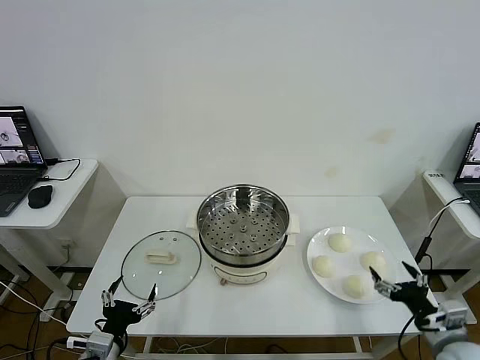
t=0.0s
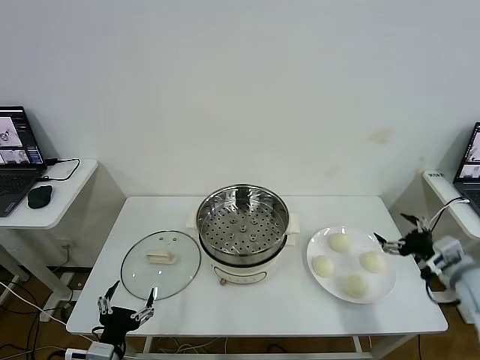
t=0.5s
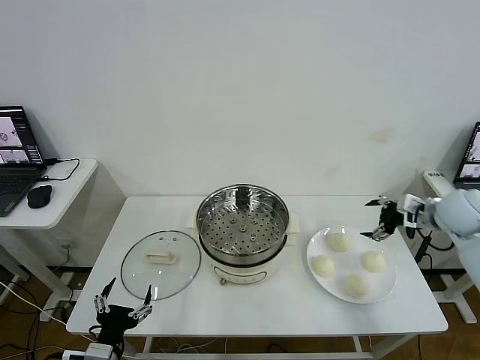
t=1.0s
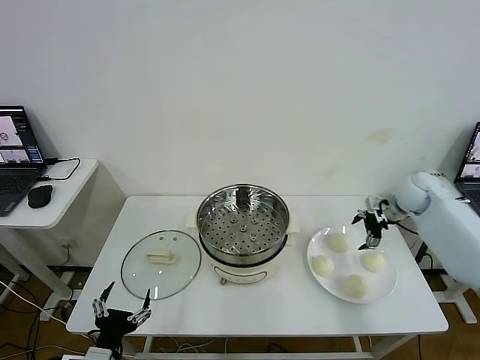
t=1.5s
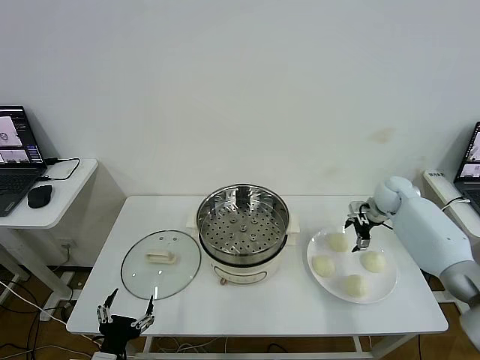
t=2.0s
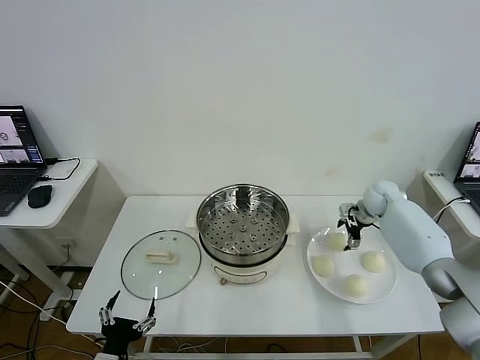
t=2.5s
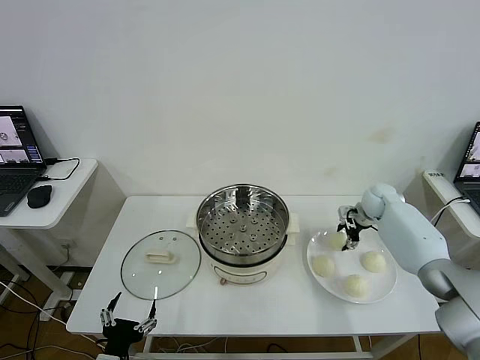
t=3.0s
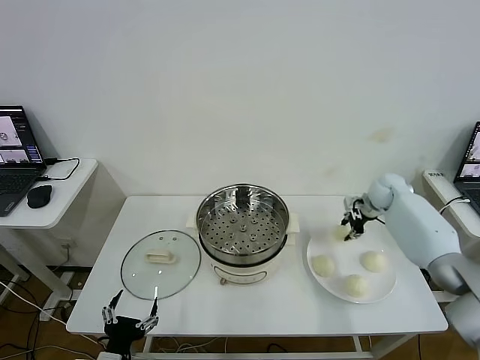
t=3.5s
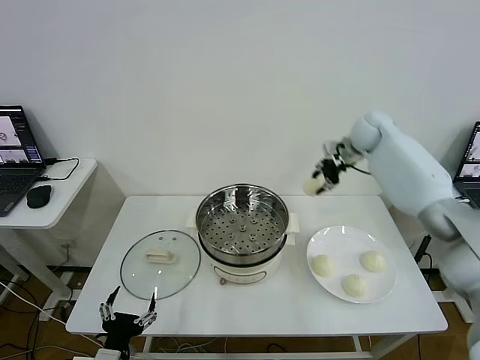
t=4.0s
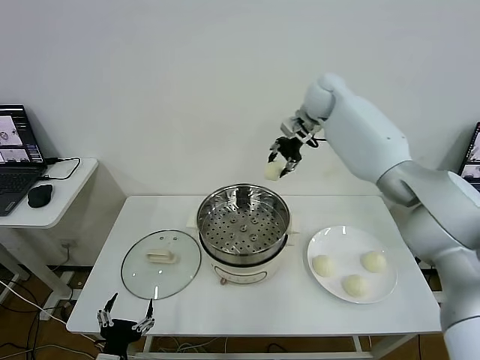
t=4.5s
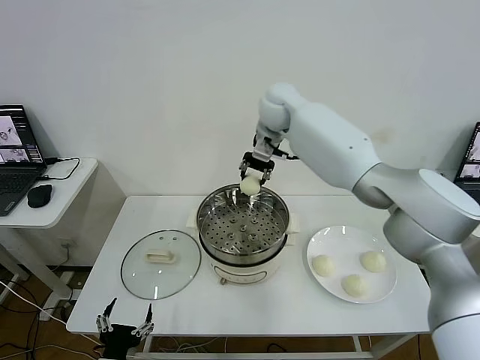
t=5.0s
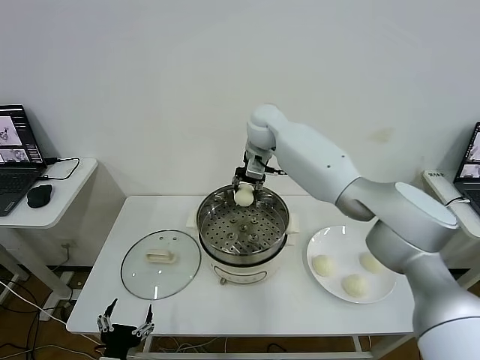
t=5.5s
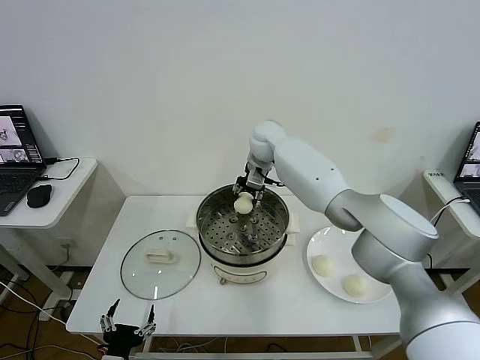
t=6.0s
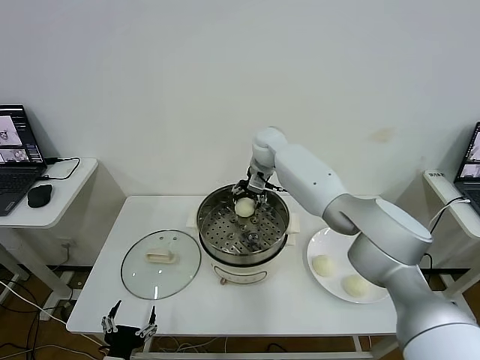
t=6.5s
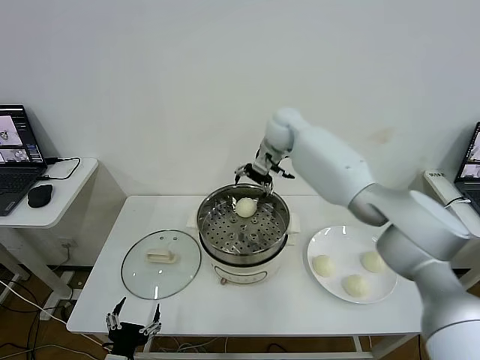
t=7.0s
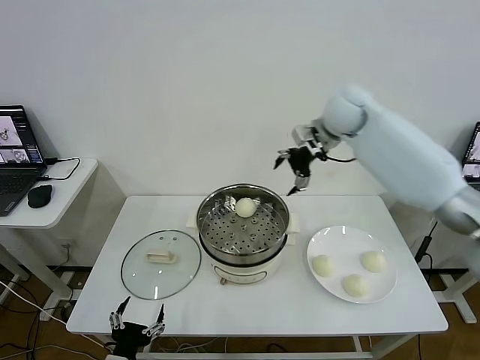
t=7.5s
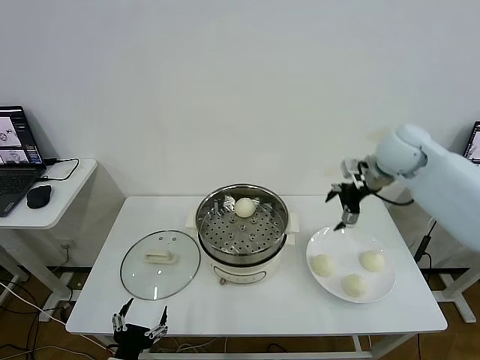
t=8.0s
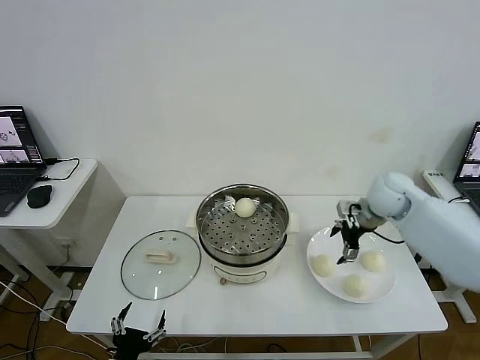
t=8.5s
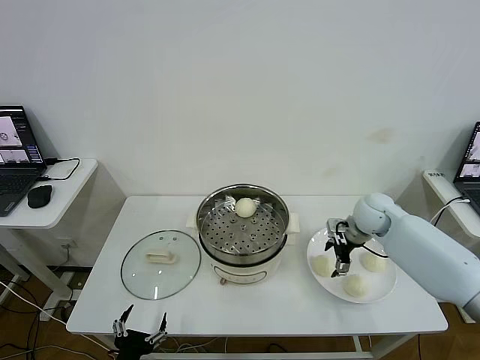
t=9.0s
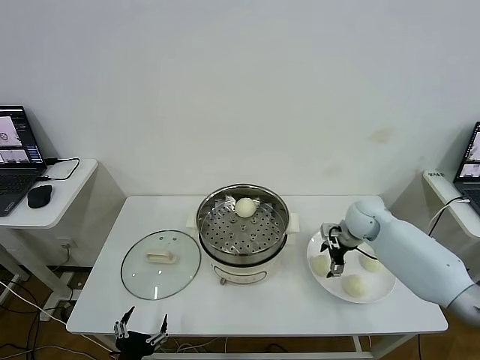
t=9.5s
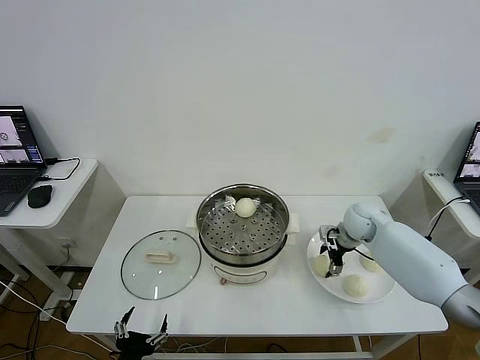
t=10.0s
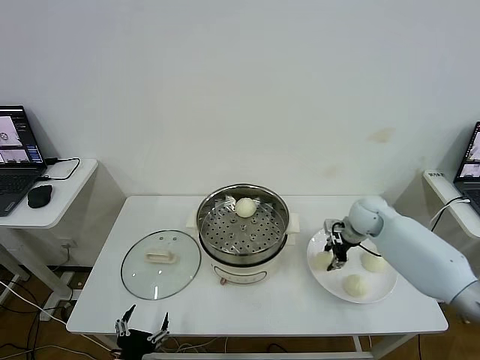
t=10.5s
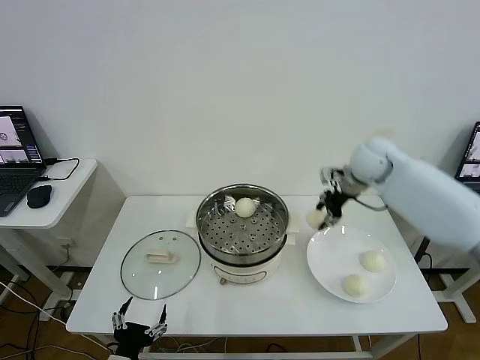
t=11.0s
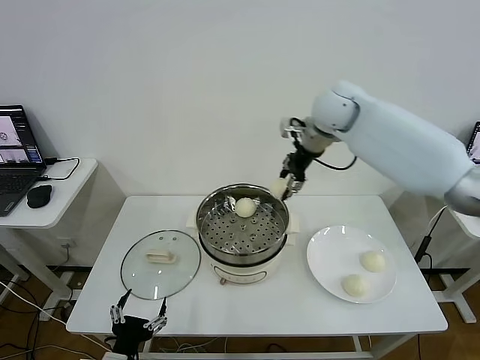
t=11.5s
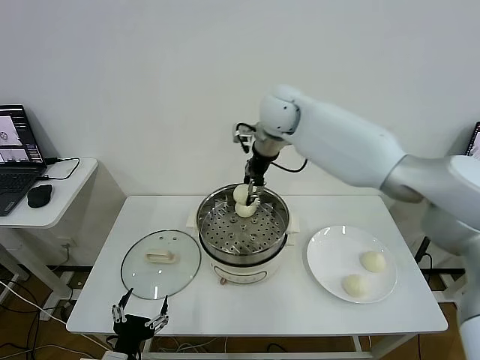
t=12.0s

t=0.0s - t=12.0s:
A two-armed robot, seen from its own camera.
Step, t=0.0s - t=3.0s: Grasp the baozi in the plate with right gripper.
Step, t=3.5s - t=6.5s: Place the baozi on the steamer with right gripper.
Step, t=7.0s - t=10.0s: Grasp the baozi in the plate with right gripper.
t=2.0s - t=4.0s: The right gripper goes some 25 cm upward and to the left, and closes.
t=4.0s - t=6.0s: The right gripper moves to the left, roughly 20 cm.
t=6.0s - t=8.0s: The right gripper travels to the right and backward by about 30 cm, and opens.
t=8.0s - t=10.0s: The right gripper goes some 20 cm downward, and closes.
t=10.0s - t=12.0s: The right gripper heads upward and to the left, covering approximately 35 cm, and closes.

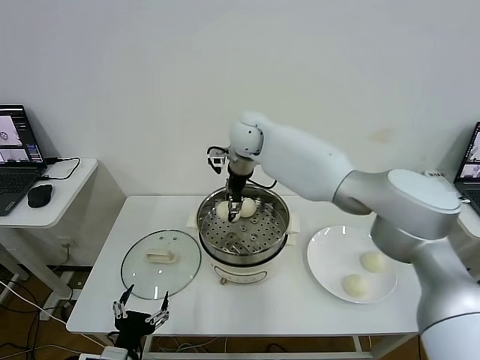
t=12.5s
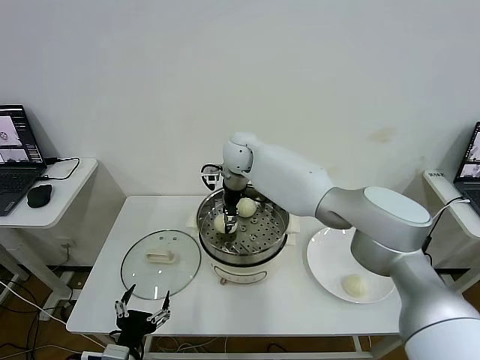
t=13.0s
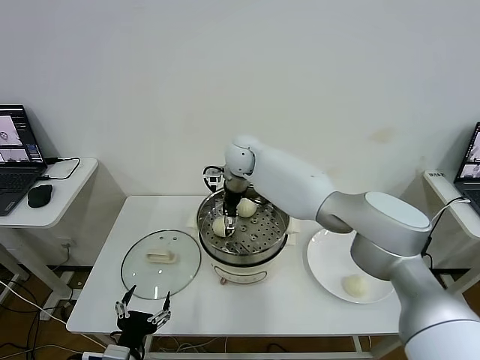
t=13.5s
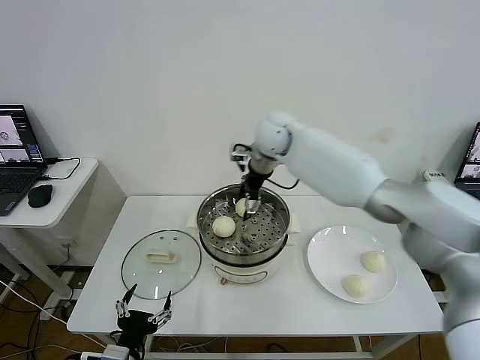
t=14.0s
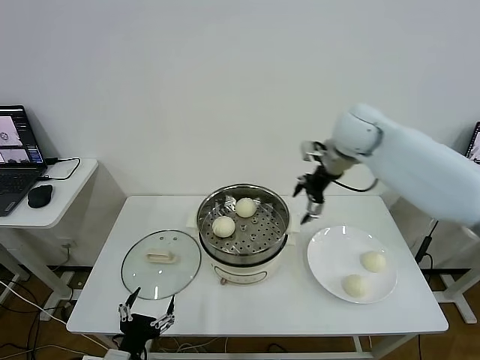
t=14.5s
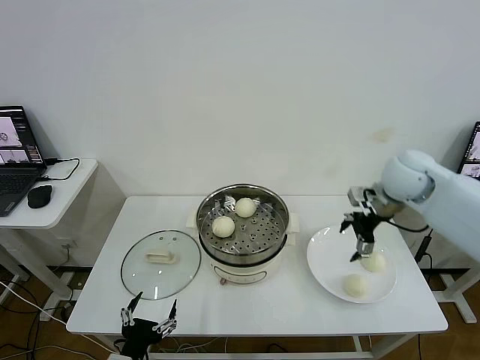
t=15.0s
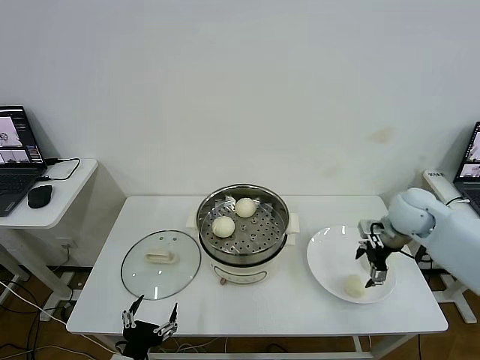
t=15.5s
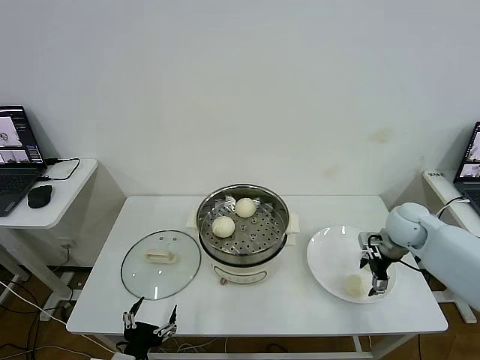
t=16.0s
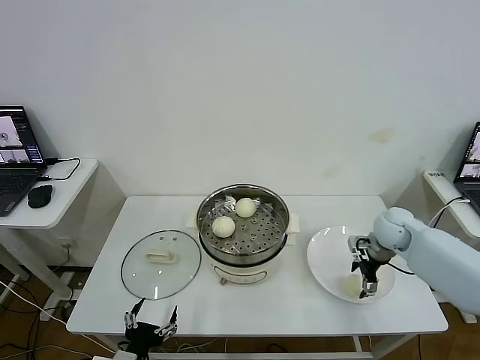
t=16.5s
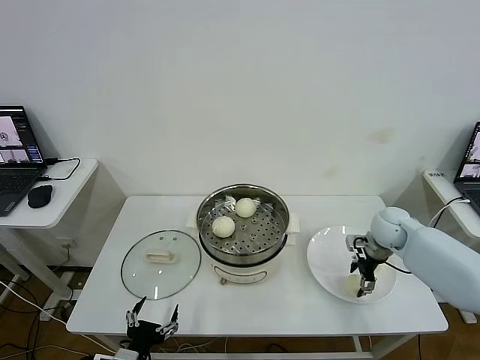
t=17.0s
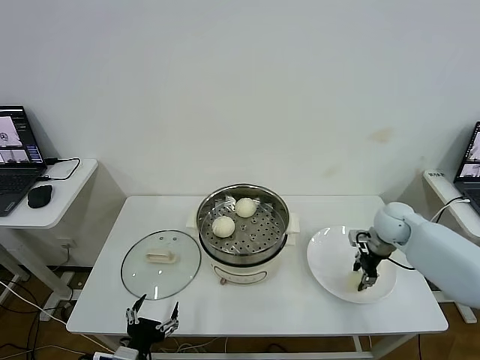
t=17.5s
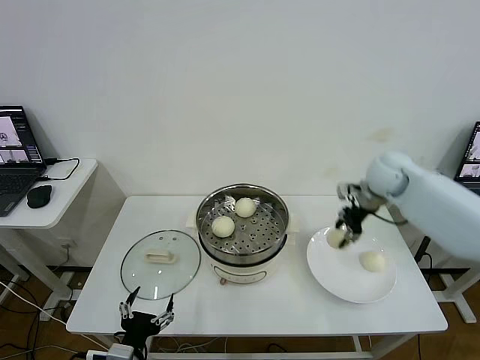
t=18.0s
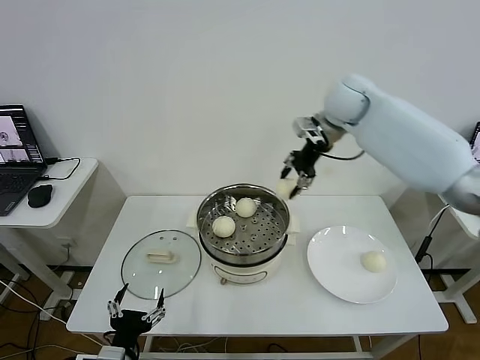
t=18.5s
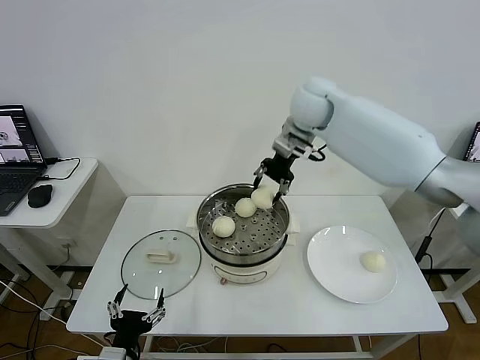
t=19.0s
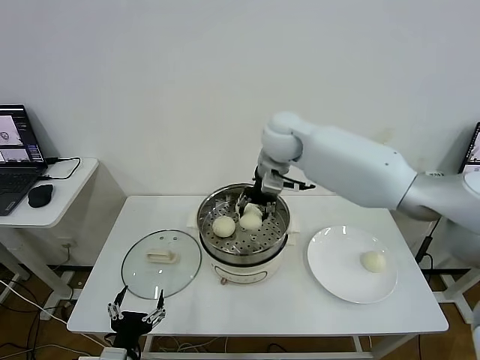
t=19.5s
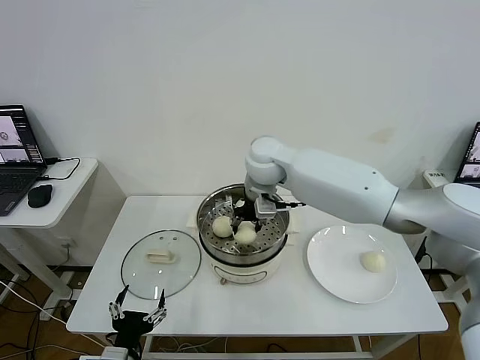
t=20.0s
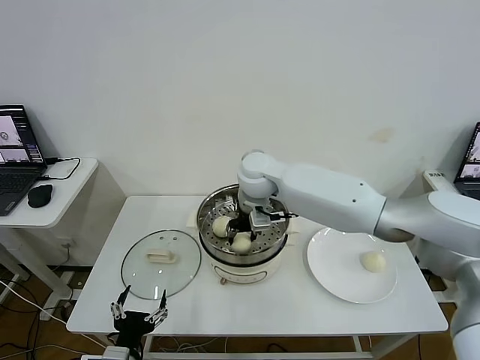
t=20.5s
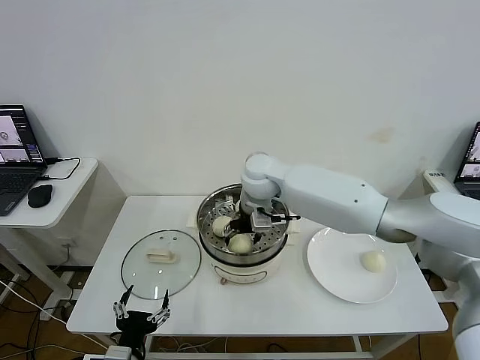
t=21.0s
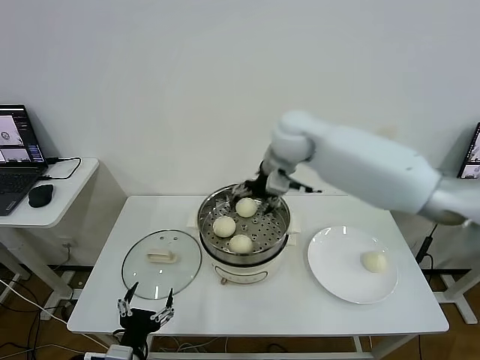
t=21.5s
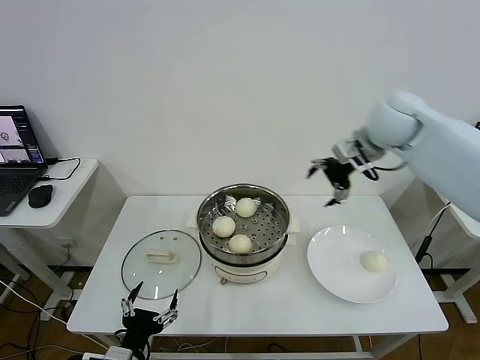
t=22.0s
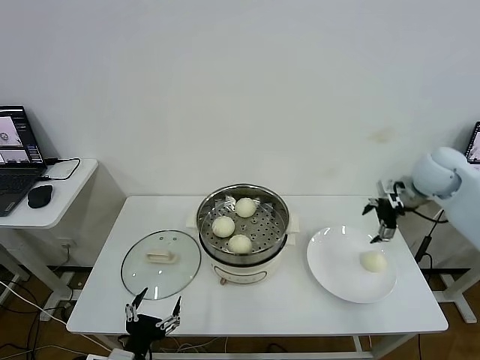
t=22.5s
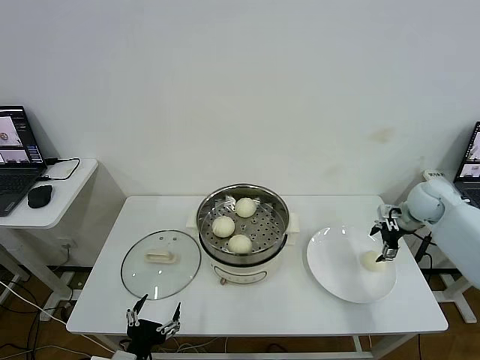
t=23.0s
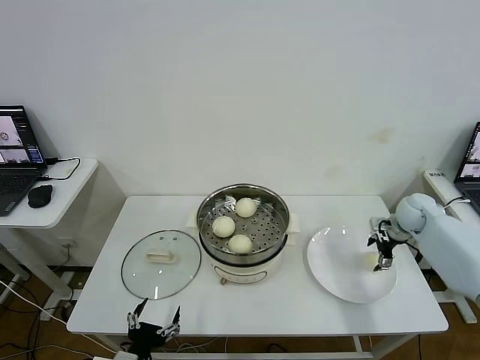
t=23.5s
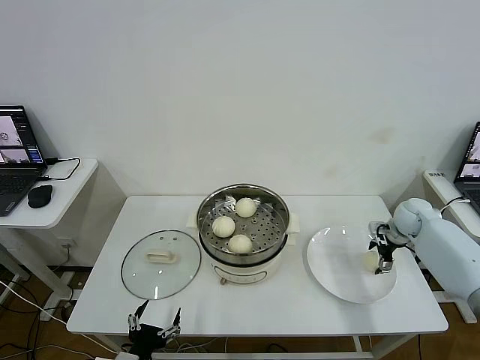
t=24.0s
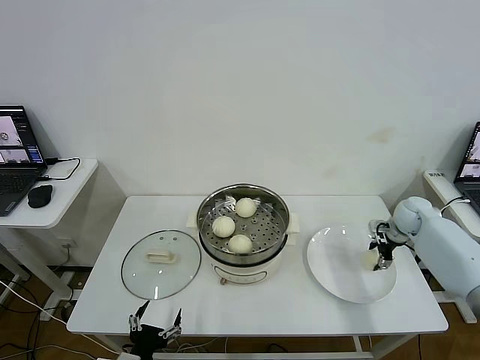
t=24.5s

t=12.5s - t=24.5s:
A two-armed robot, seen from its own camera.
Step, t=14.0s - t=17.0s: Grasp the baozi in the plate with right gripper.
Step, t=17.5s - t=21.0s: Place the baozi on the steamer with right gripper.
t=12.5s - t=14.5s: The right gripper shifts about 25 cm to the right, and opens up.
t=14.5s - t=16.5s: The right gripper moves downward and to the right, approximately 25 cm.
t=16.5s - t=18.5s: The right gripper heads upward, to the left and forward, covering about 35 cm, and closes.
t=18.5s - t=20.5s: The right gripper moves to the left, downward and backward, some 25 cm.
t=20.5s - t=22.5s: The right gripper travels to the right by about 40 cm, and opens its fingers.
t=22.5s - t=24.5s: The right gripper travels downward by roughly 15 cm, and closes up.

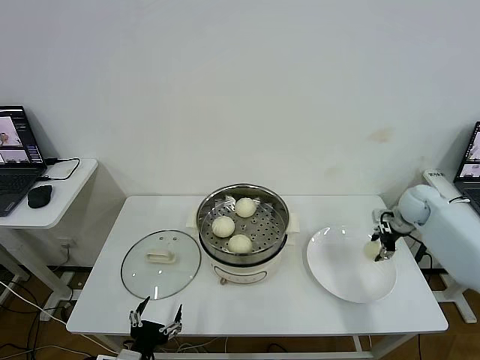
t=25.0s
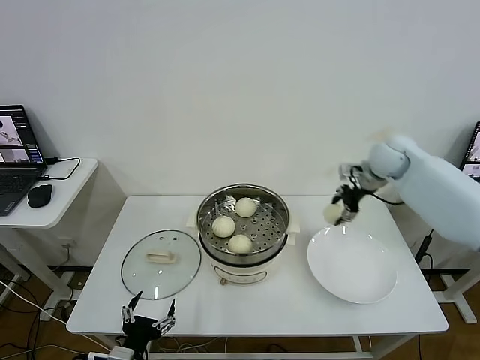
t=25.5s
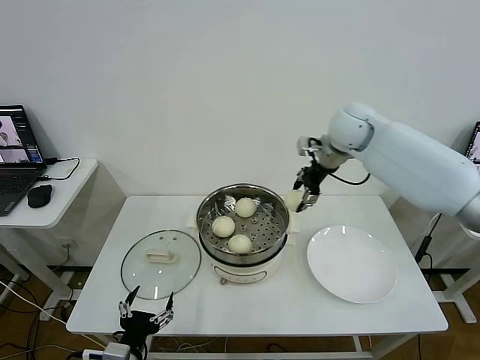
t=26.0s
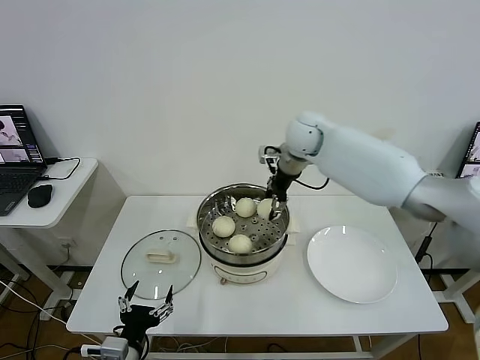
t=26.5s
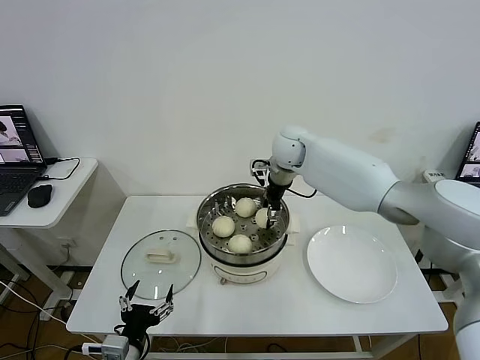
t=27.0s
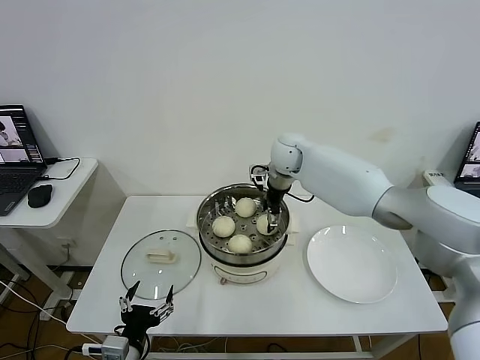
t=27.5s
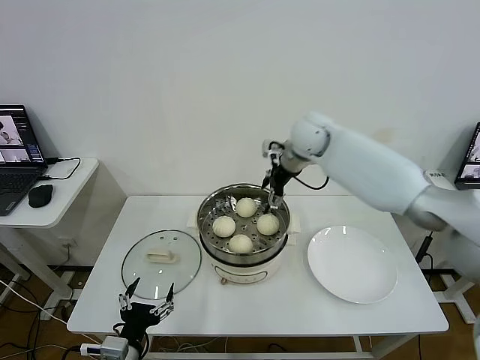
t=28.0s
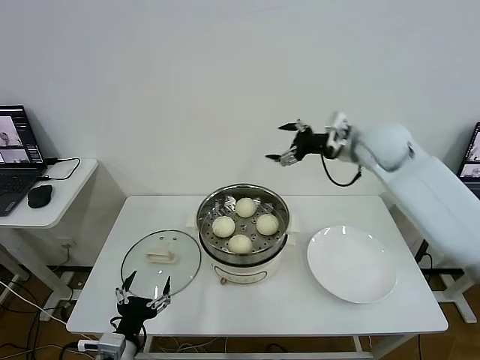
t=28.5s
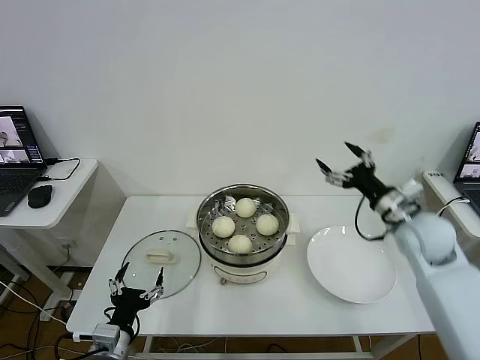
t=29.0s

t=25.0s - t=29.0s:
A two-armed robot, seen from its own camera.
Step, t=25.0s - t=27.5s: Place the baozi on the steamer with right gripper.
t=25.0s - t=27.0s: The right gripper moves to the left, about 35 cm.
t=27.0s - t=29.0s: The right gripper goes about 35 cm to the right and backward, and opens its fingers.
